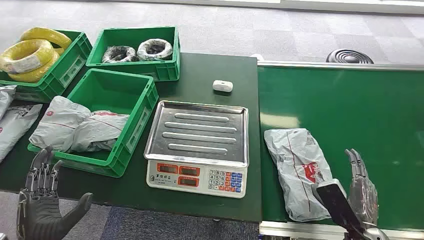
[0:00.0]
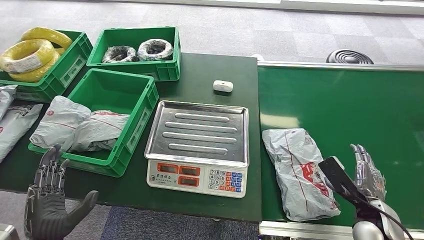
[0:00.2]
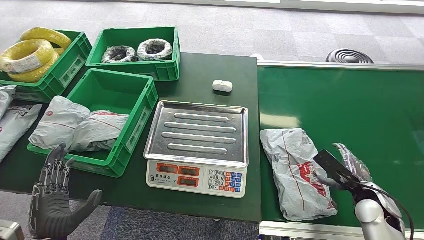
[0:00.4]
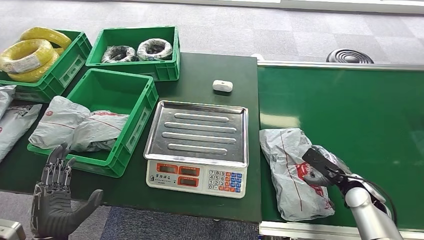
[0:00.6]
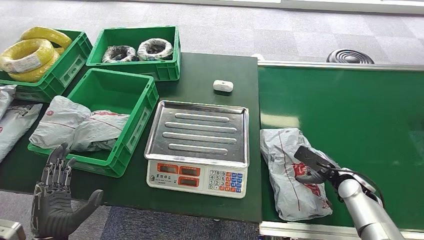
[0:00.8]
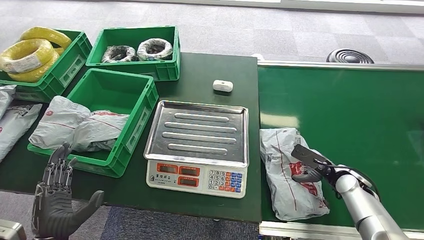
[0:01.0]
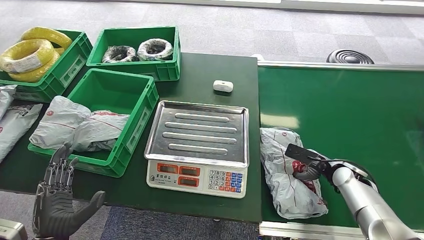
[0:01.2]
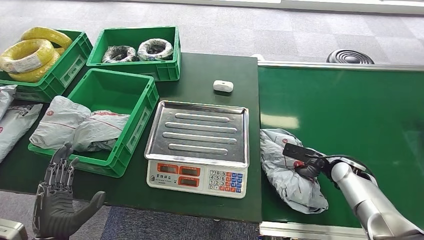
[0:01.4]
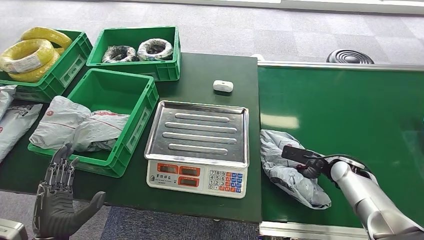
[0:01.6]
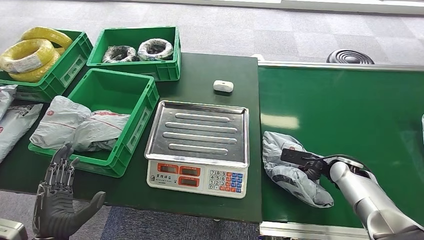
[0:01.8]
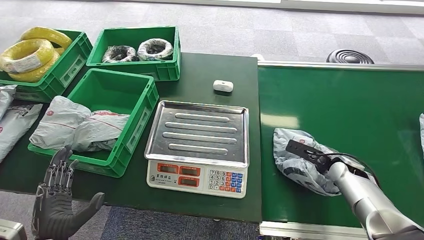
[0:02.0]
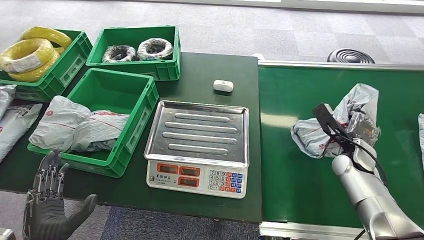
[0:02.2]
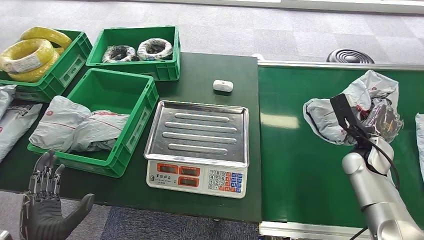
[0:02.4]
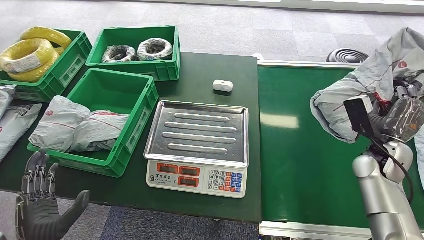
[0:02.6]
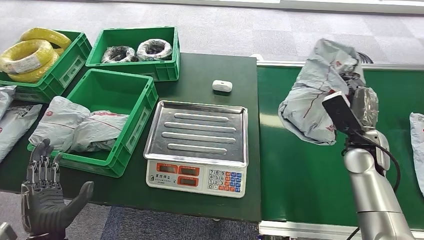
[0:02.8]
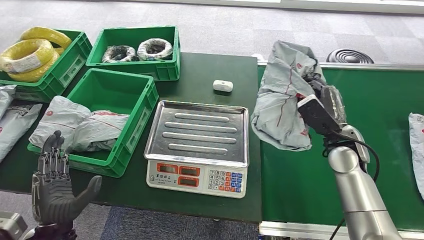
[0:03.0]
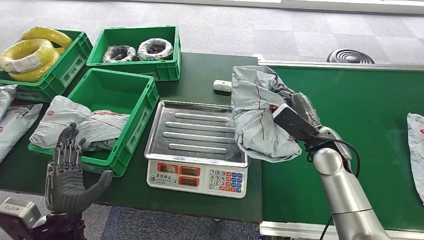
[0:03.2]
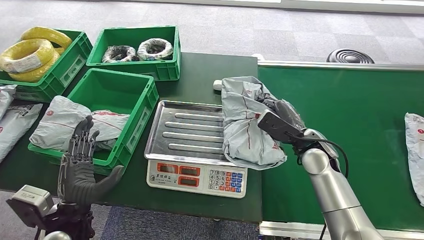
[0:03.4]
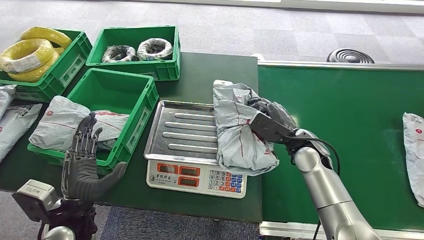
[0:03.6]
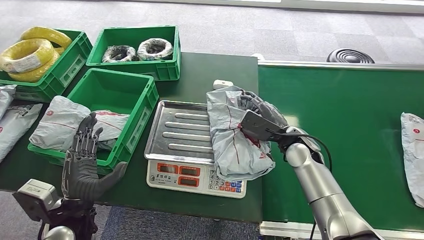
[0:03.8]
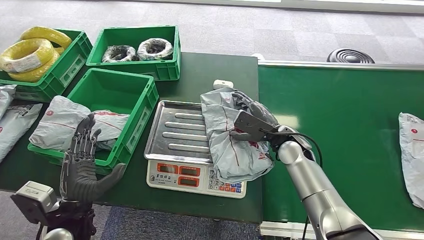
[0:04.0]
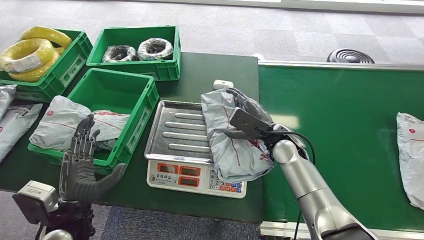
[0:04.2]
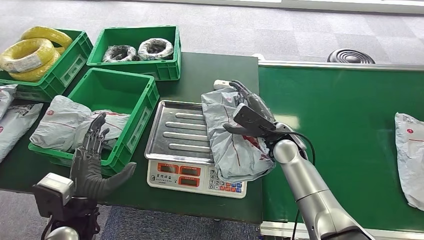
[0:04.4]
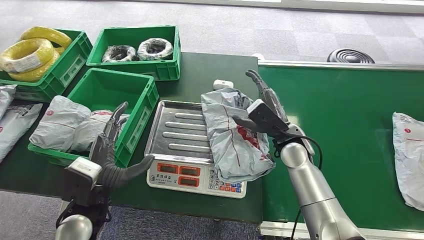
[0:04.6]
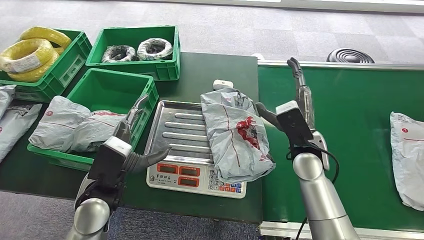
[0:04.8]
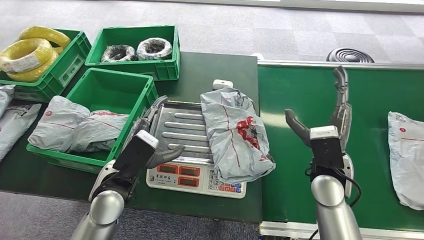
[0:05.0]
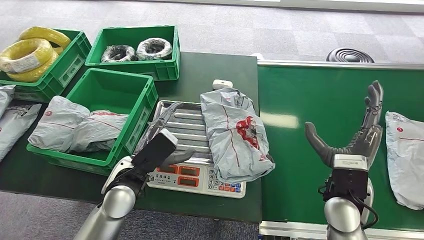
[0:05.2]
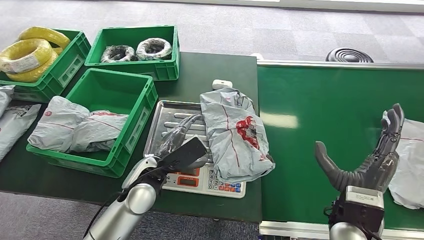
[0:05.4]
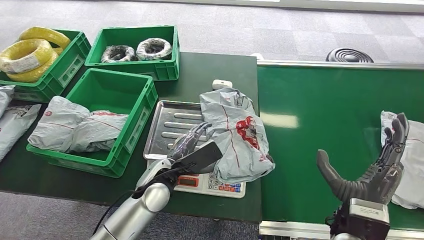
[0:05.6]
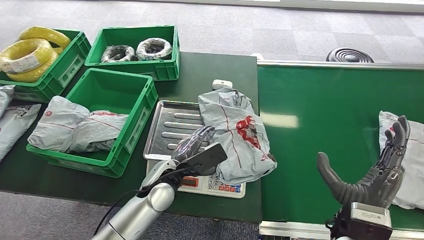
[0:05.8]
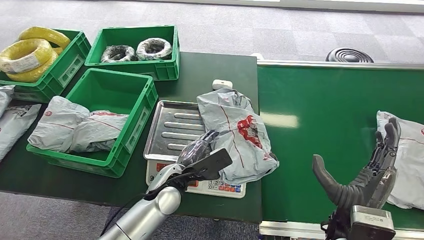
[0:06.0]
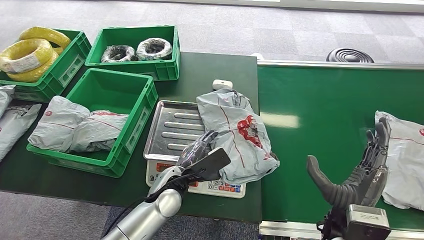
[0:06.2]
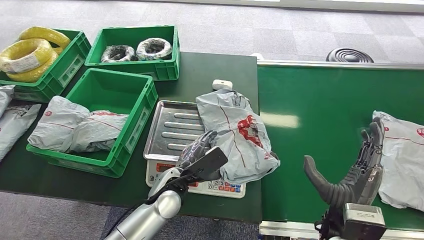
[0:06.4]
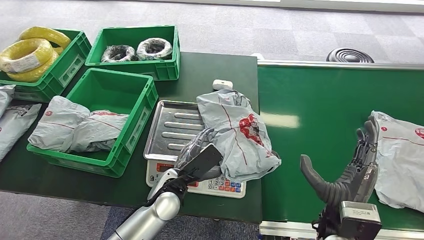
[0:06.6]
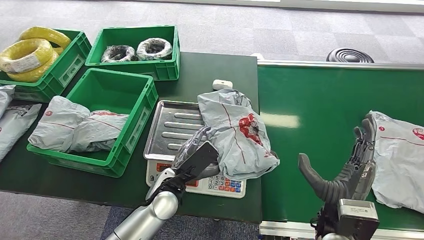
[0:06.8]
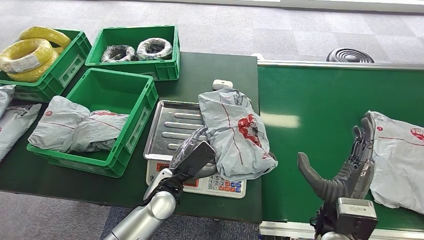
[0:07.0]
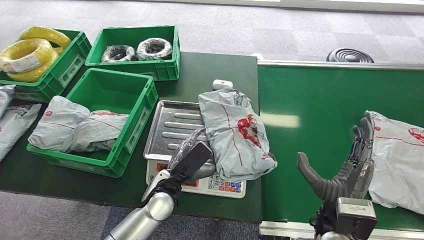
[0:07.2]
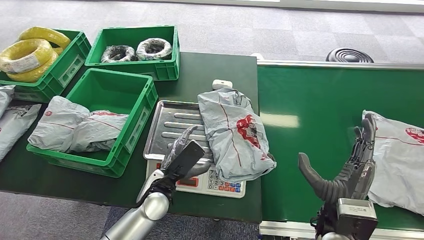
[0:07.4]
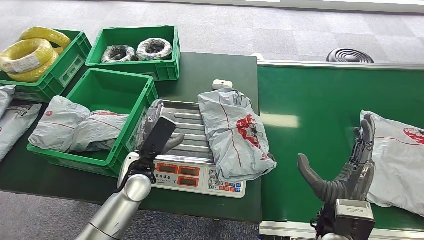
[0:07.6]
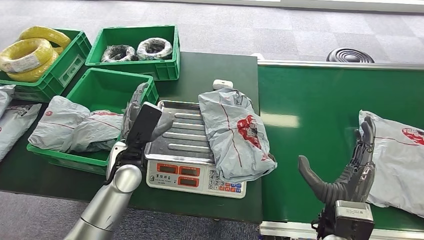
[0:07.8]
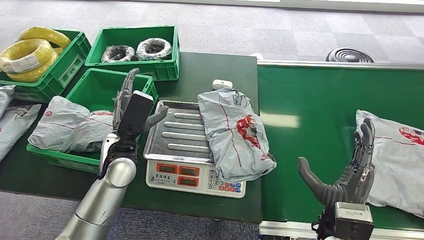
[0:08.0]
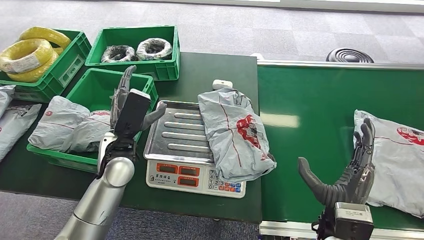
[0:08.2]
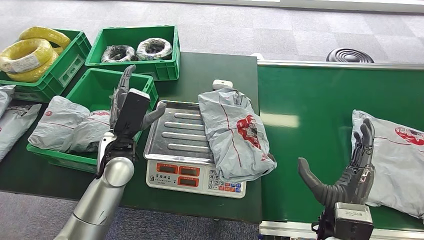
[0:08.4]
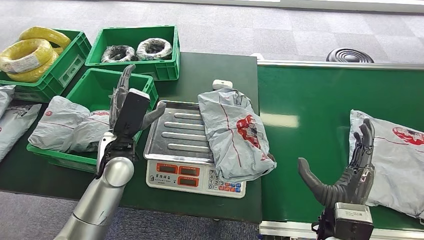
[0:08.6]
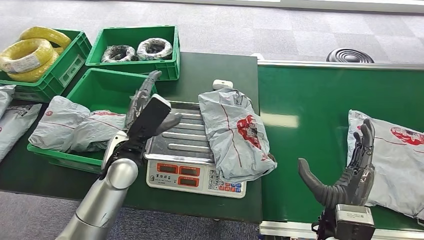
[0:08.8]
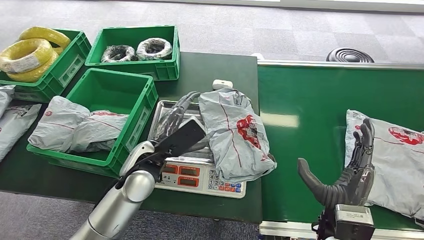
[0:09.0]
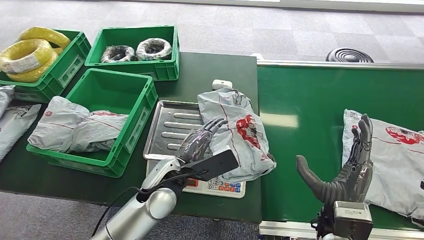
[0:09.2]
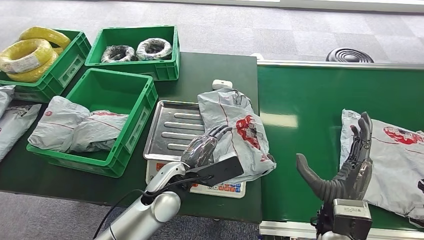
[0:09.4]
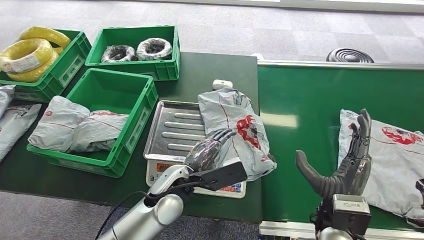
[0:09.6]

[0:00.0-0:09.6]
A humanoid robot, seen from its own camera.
Step, 0:00.0 to 0:02.4: Pick up the package from the conveyor belt.
Step, 0:02.8 to 0:04.6: Place the package onto the inbound machine.
0:01.6 to 0:03.2: The right hand travels to the left and upward by approximately 15 cm.
0:06.4 to 0:08.0: The left hand moves to the left and upward, some 15 cm.
0:08.0 to 0:09.6: The left hand travels to the right and backward by some 15 cm.

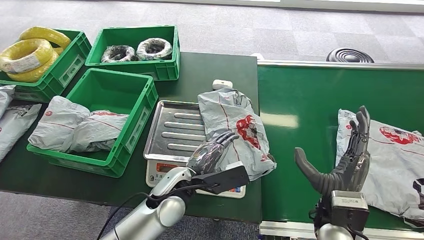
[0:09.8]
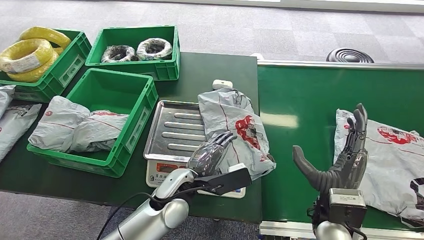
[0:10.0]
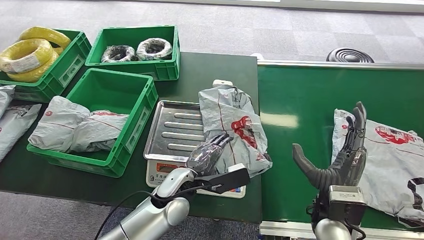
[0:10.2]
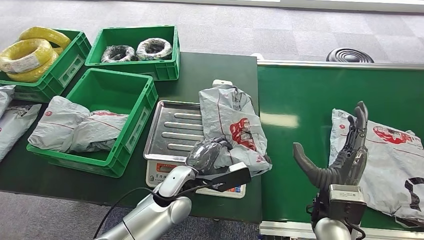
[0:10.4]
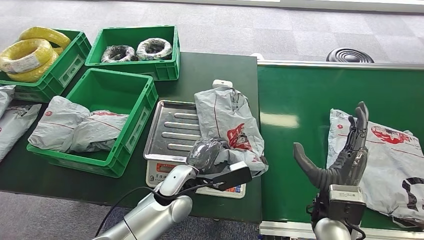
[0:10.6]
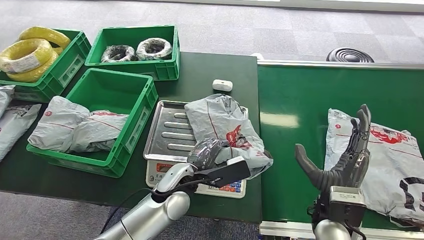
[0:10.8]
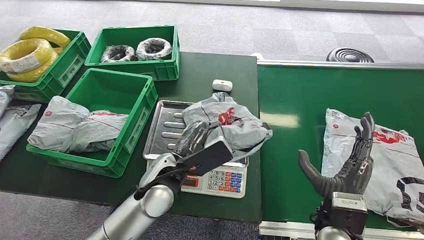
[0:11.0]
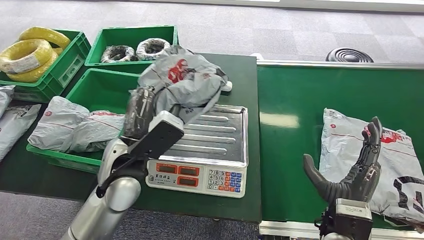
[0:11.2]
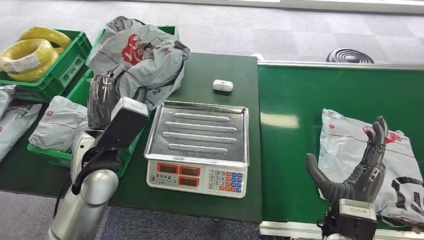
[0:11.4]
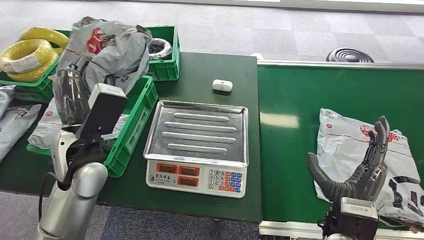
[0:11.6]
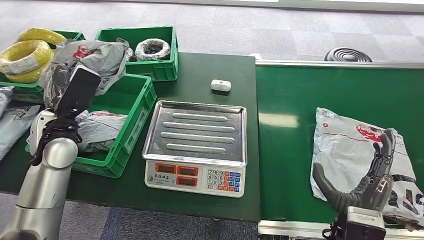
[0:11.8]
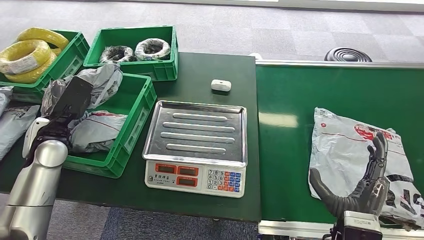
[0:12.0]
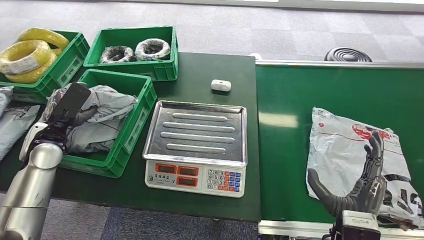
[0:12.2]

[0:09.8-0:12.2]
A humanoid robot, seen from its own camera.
Step, 0:11.6 to 0:12.2: Place the package into the parcel locker.
0:09.8 to 0:11.0: The hands move only a little.
